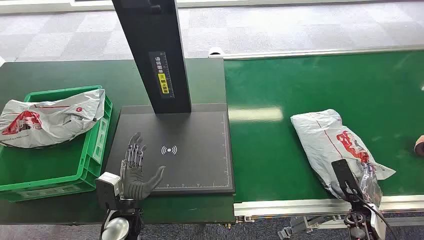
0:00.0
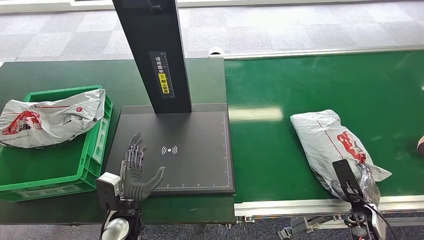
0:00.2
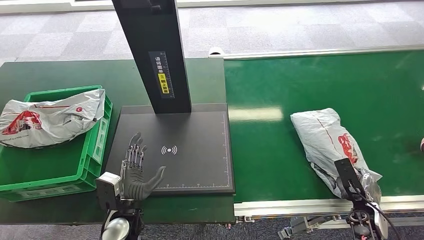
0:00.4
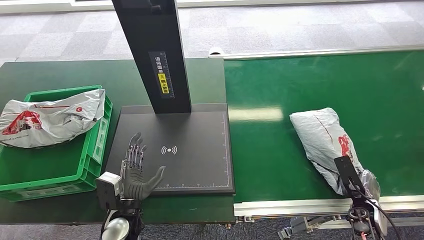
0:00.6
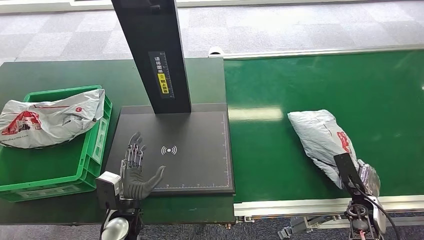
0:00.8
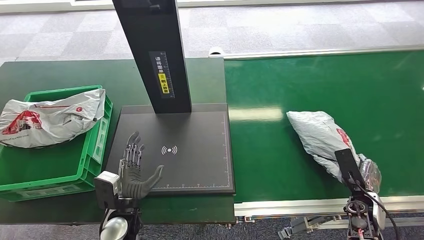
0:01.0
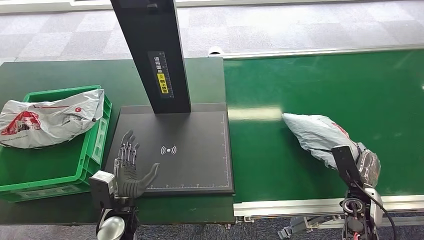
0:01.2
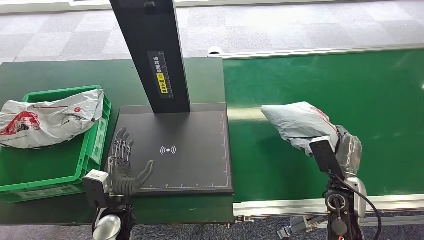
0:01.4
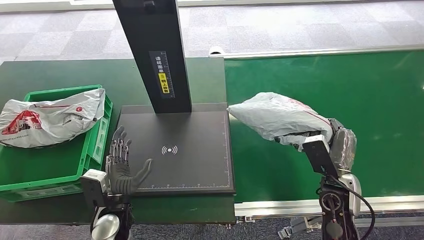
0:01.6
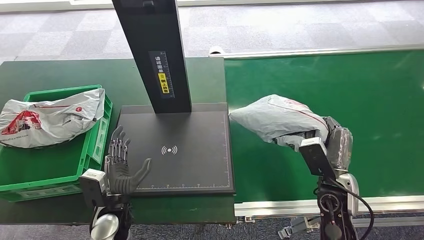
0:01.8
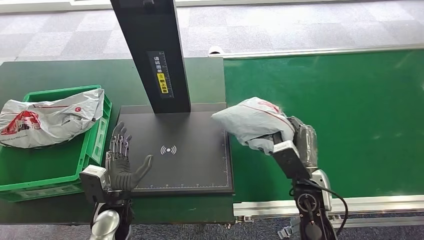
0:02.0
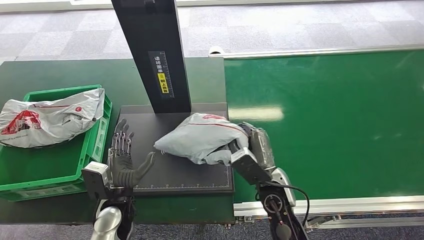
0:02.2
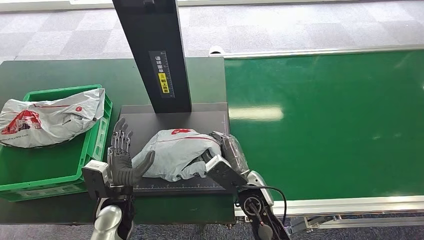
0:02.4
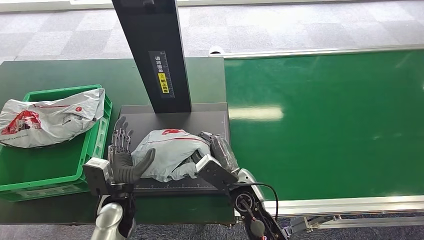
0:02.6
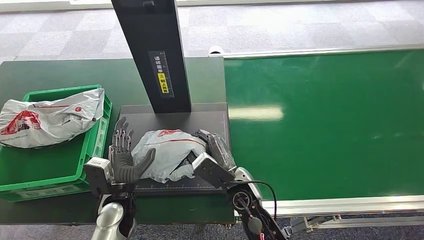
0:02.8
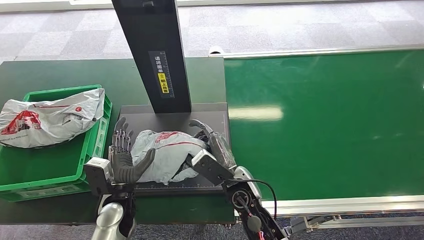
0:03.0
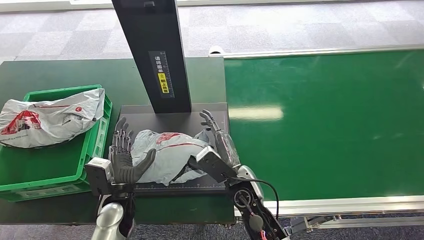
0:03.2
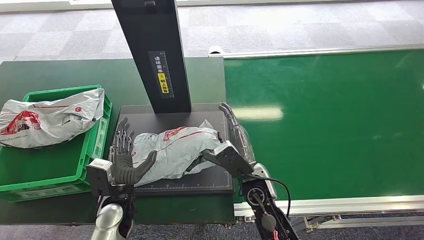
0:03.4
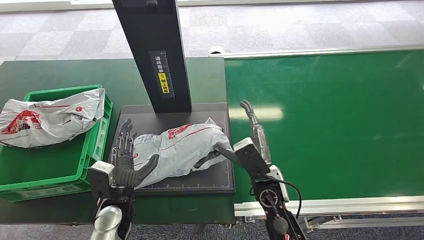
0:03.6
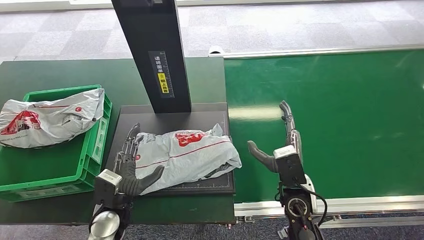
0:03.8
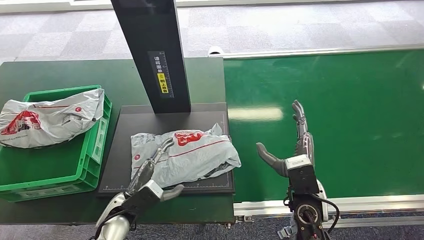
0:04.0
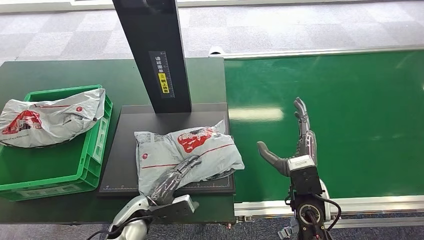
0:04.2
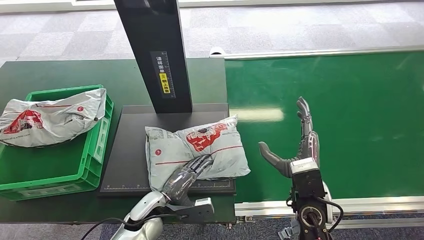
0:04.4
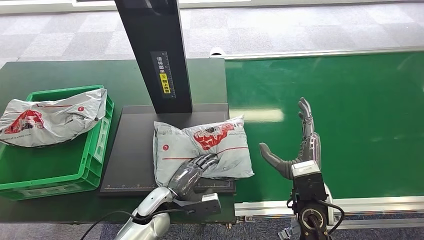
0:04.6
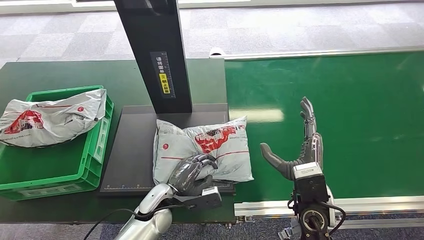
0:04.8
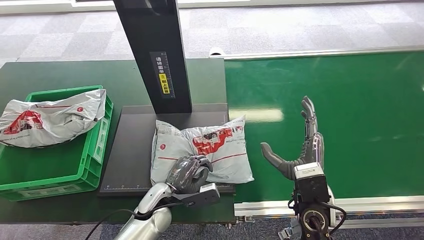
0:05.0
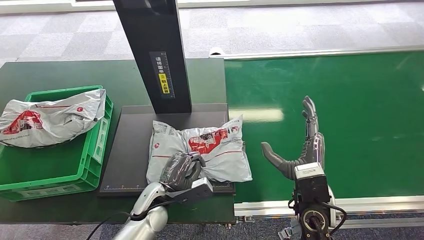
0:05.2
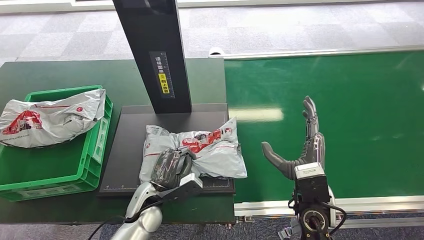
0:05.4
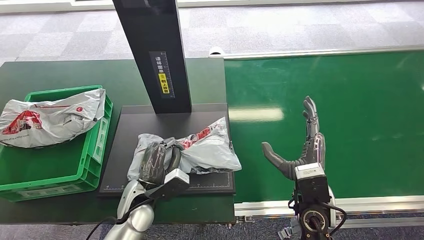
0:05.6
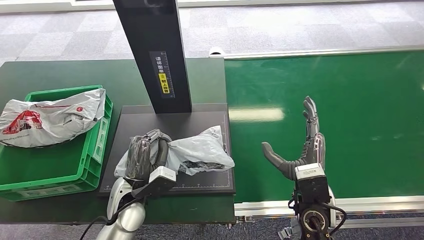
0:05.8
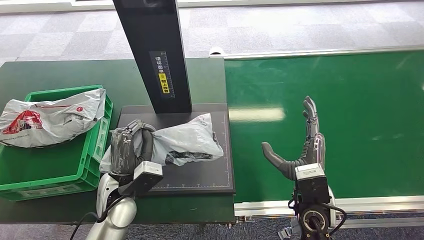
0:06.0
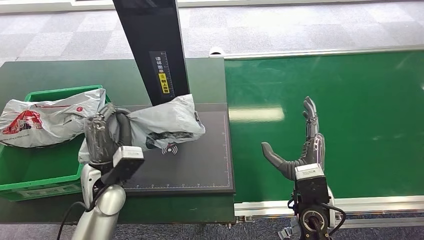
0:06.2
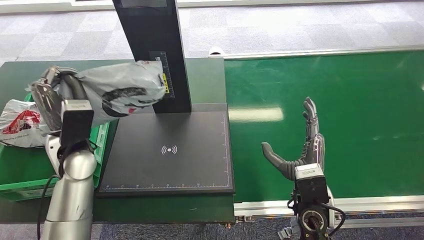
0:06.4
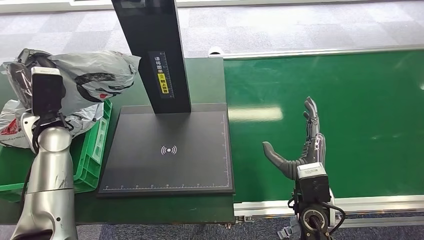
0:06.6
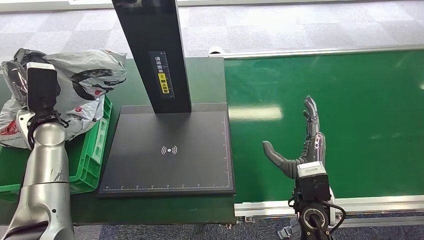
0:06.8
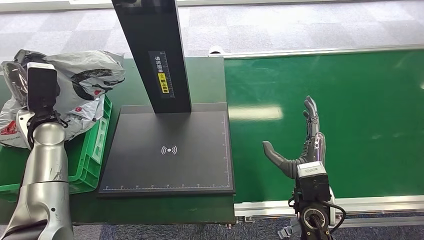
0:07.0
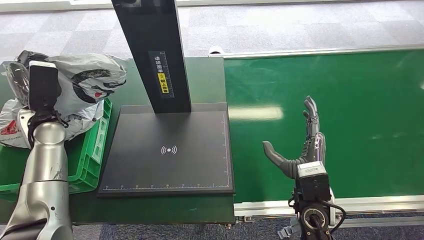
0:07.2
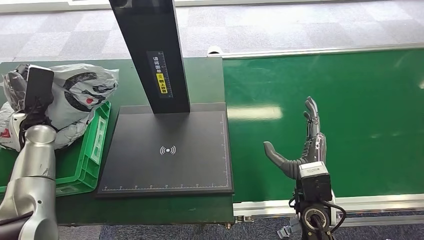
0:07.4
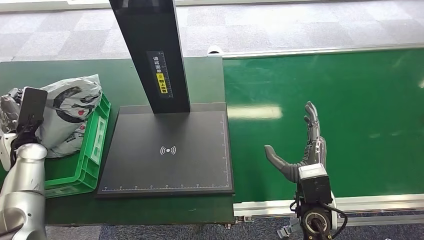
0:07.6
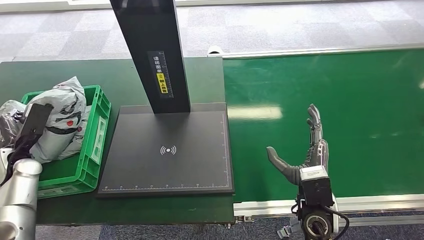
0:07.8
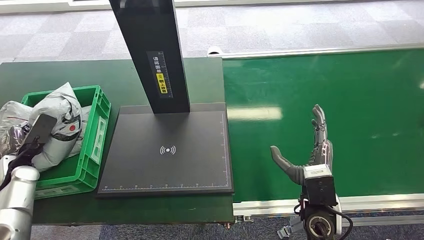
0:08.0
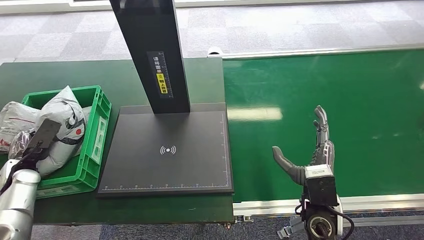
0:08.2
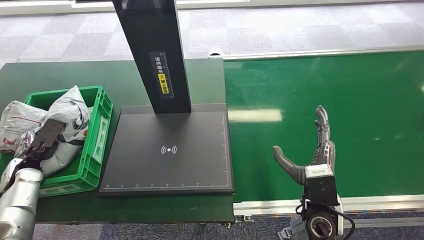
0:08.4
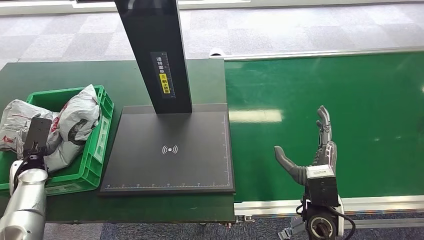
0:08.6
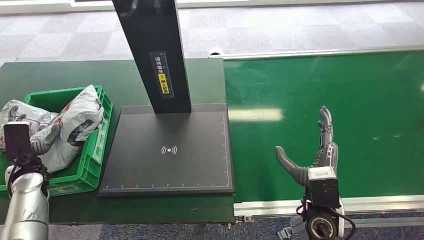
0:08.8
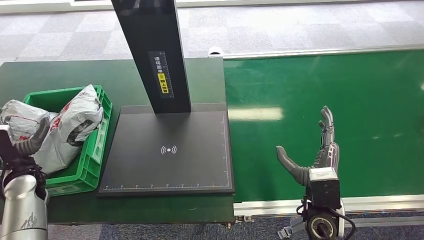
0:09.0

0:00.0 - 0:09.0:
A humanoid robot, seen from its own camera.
Step, 0:00.0 - 0:01.6: Pick up the package from the conveyor belt.
Step, 0:01.8 - 0:03.8: Place the package onto the inbound machine.
Step, 0:04.0 - 0:06.8: Pick up the package from the inbound machine.
Step, 0:07.0 - 0:09.0: Place the package into the parcel locker.
0:01.6 - 0:03.0: The right hand travels to the left by approximately 20 cm.
0:04.4 - 0:06.0: The left hand goes about 10 cm upward.
0:07.6 - 0:09.0: The left hand heads backward, covering about 5 cm.
